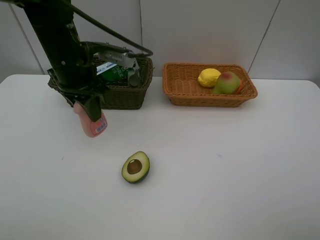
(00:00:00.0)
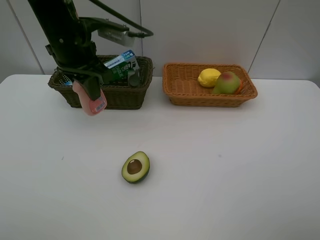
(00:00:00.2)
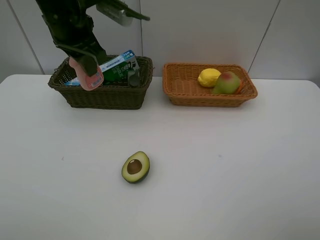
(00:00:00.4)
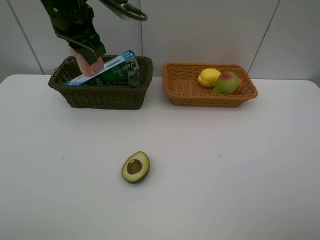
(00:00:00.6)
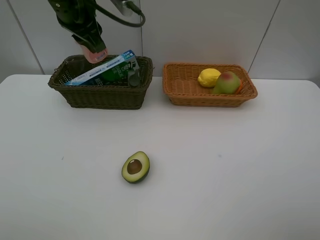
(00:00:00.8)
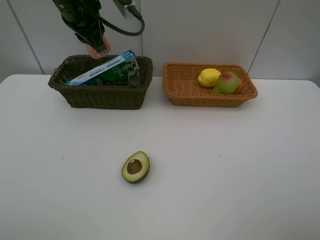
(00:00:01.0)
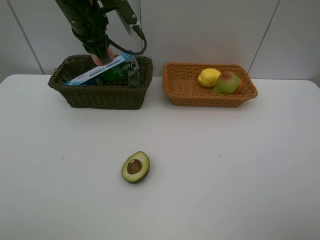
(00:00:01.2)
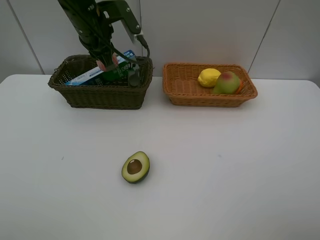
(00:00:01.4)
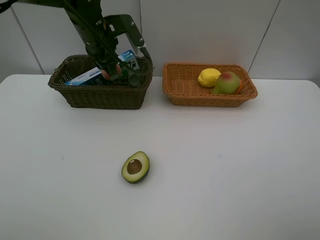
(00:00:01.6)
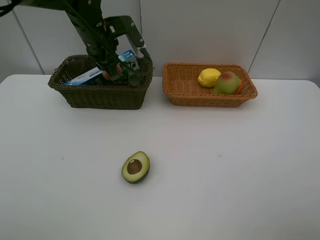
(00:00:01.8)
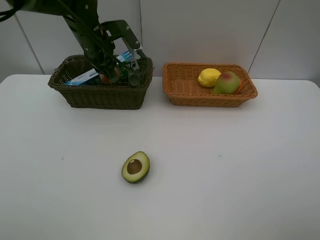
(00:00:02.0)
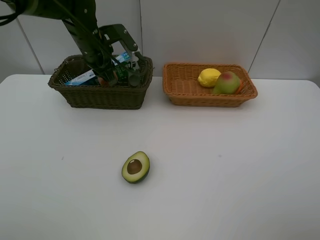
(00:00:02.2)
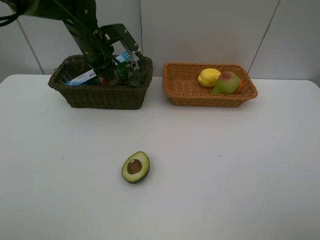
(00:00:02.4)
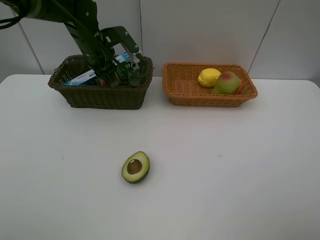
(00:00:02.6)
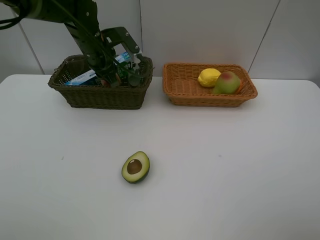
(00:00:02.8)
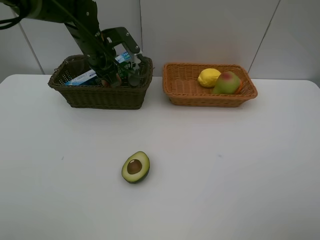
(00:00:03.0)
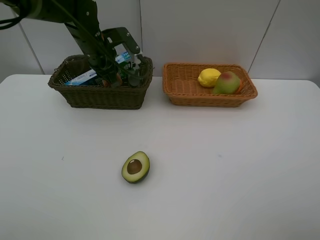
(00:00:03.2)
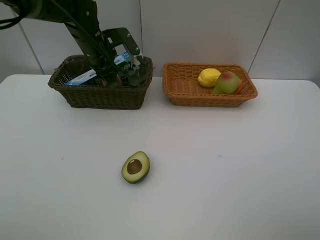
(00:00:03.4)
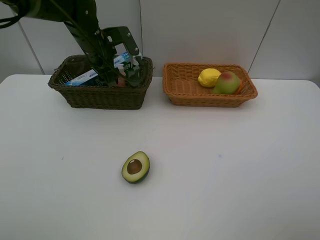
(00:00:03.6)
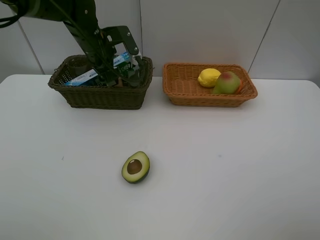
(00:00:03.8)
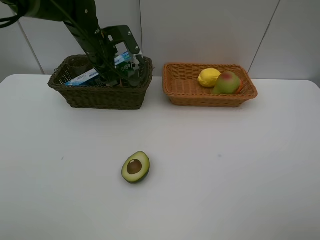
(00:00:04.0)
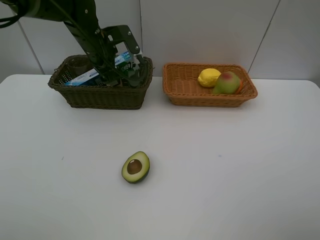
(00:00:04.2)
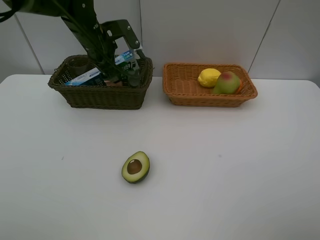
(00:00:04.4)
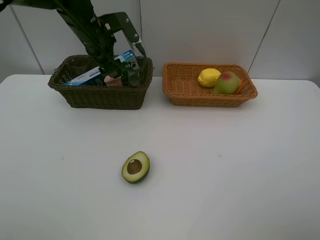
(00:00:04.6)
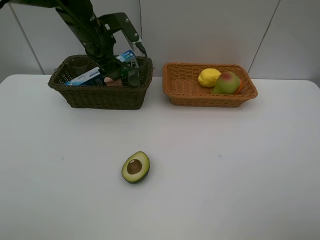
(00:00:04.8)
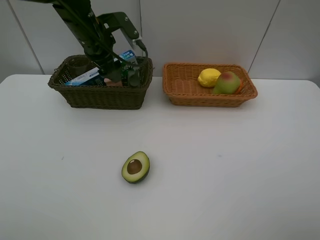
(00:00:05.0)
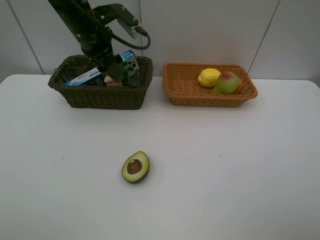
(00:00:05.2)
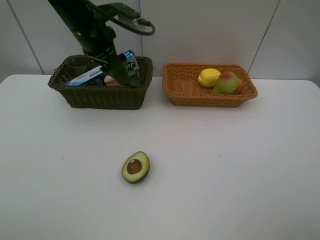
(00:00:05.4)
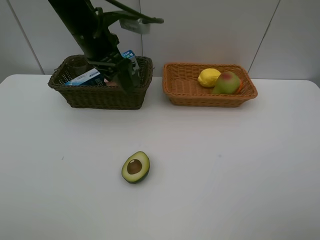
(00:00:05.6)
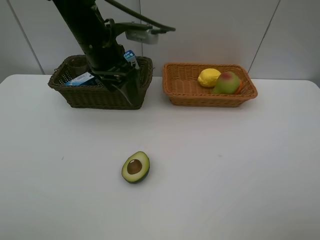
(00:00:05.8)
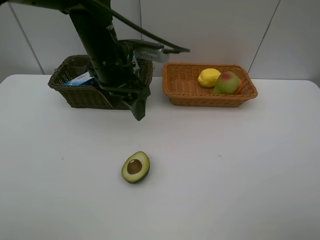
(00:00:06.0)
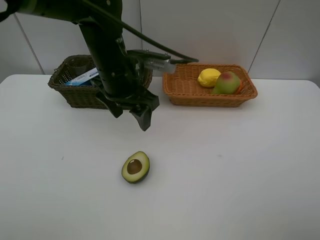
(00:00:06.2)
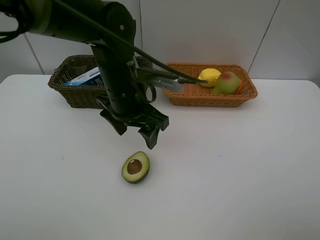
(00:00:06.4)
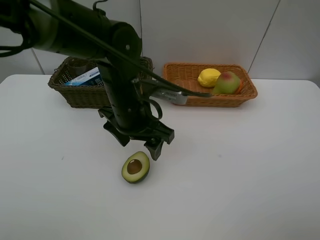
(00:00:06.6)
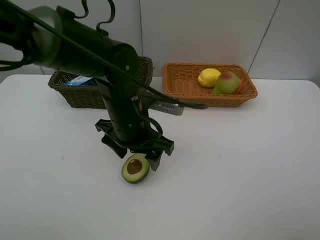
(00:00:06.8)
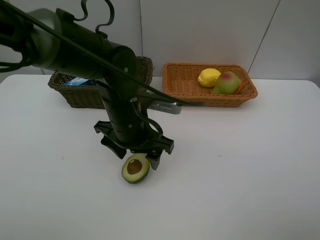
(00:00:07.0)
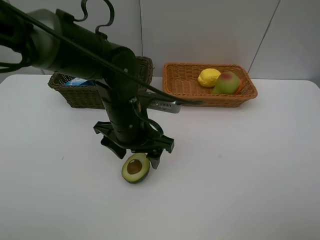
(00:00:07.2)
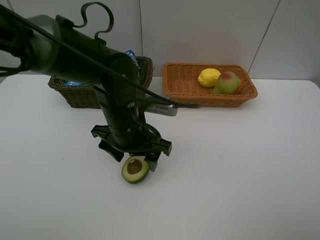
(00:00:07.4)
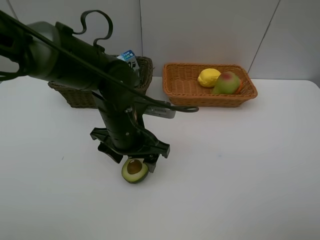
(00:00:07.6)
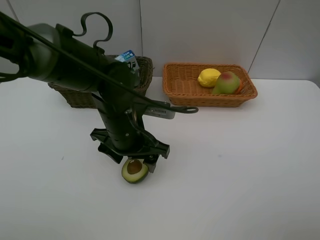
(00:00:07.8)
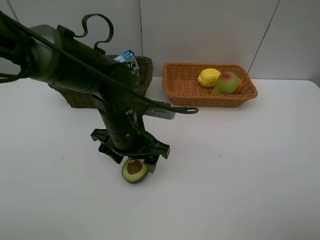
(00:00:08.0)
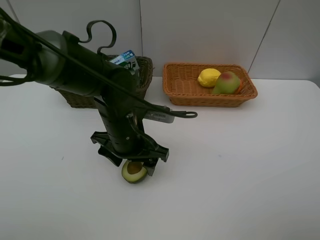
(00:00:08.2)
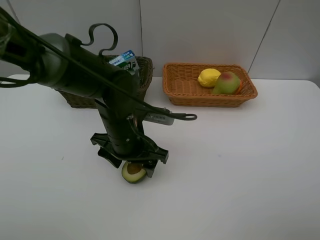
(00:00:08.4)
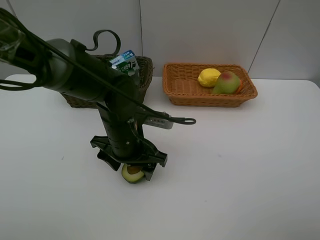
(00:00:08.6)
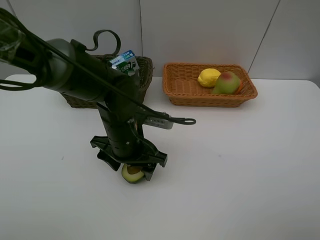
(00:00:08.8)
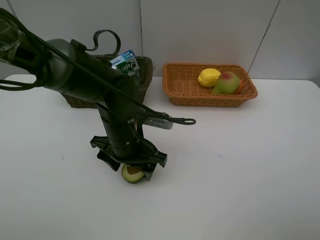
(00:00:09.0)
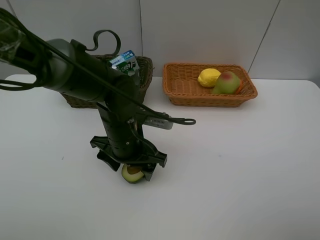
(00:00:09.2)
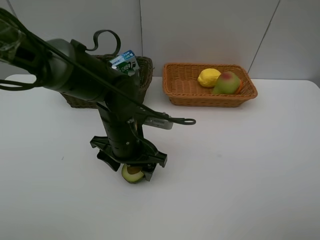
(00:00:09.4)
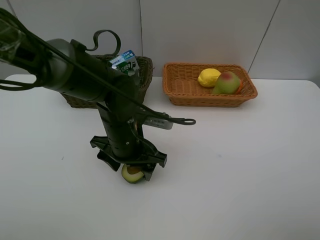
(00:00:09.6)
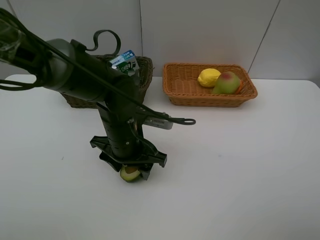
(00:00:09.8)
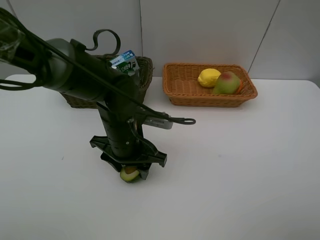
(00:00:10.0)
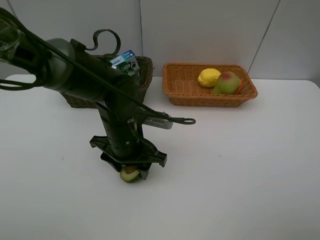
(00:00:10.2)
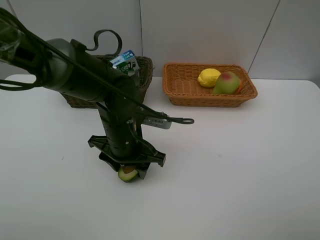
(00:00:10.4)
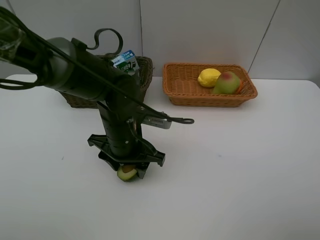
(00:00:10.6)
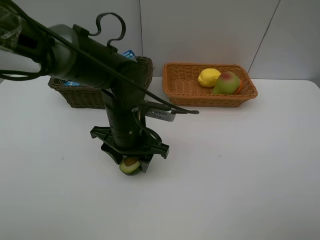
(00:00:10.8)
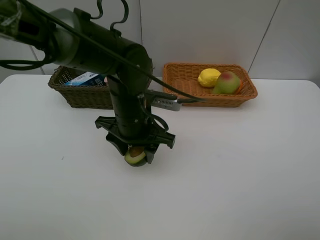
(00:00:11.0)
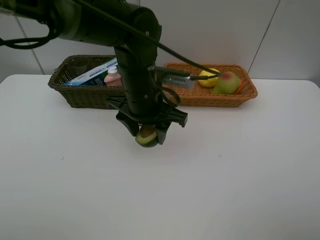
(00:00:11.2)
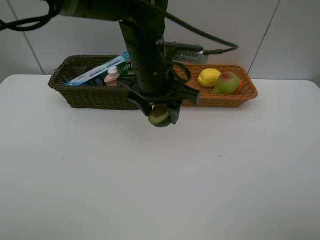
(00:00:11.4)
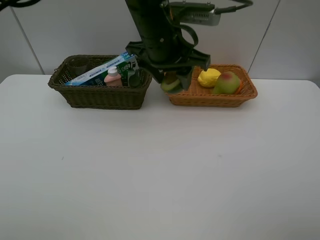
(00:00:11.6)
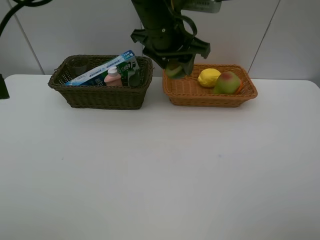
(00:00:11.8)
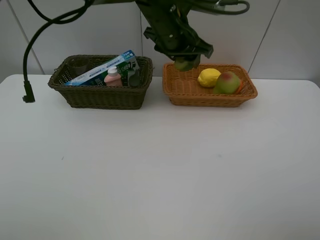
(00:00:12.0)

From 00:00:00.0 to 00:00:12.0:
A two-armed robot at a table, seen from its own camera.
Task of the whole recording: Place multiple objects separately in different baskets.
Step, from 00:00:00.0 to 00:00:04.8: Place the laundry detergent in the dark basket with left gripper.
Step, from 00:00:05.0 to 00:00:11.0: Pick up the avocado with left gripper.
From 00:00:00.0 to 00:00:01.6: The left gripper shifts some 10 cm forward.
From 00:00:01.6 to 00:00:03.0: The grippers move only a little.
From 00:00:03.0 to 00:00:04.4: The left gripper opens up.
From 00:00:04.4 to 00:00:06.0: The left gripper travels backward and to the right by approximately 10 cm.
From 00:00:06.0 to 00:00:07.6: The left gripper moves downward and backward, about 10 cm.
From 00:00:07.6 to 00:00:09.0: The grippers move only a little.
From 00:00:09.0 to 00:00:10.4: Both grippers stay put.
From 00:00:10.4 to 00:00:12.0: The left gripper is displaced forward, upward and to the right by about 20 cm.

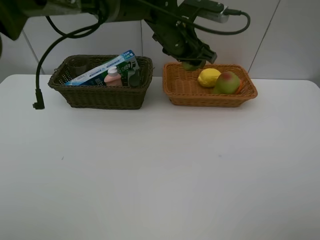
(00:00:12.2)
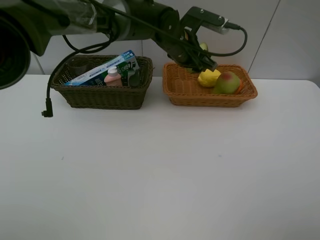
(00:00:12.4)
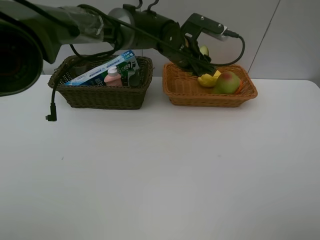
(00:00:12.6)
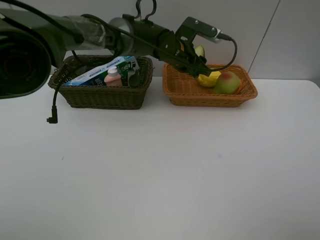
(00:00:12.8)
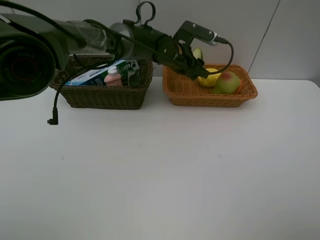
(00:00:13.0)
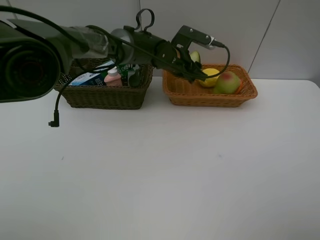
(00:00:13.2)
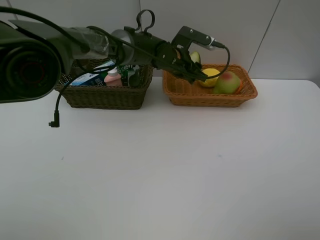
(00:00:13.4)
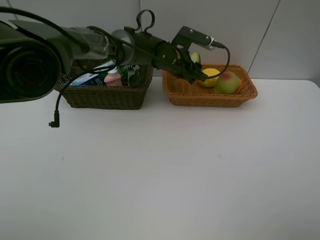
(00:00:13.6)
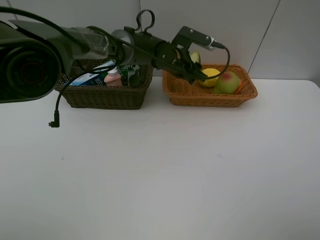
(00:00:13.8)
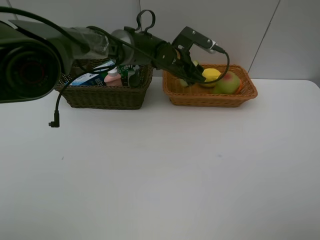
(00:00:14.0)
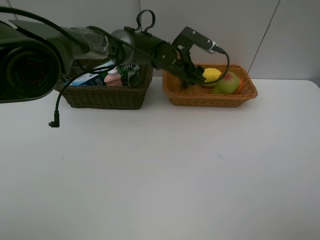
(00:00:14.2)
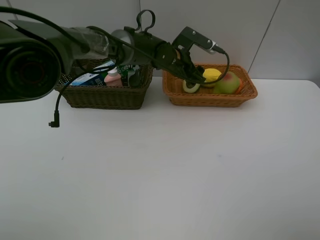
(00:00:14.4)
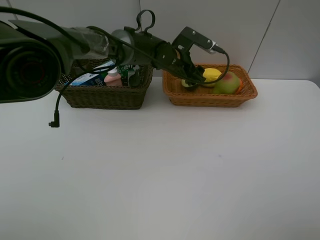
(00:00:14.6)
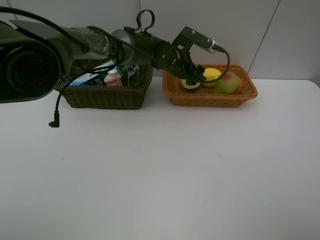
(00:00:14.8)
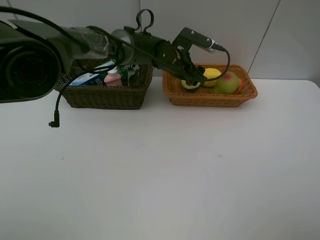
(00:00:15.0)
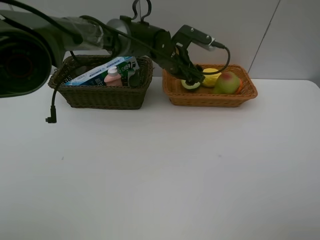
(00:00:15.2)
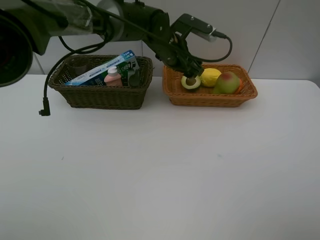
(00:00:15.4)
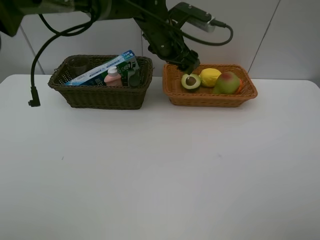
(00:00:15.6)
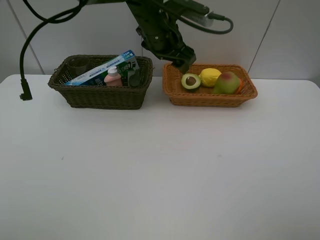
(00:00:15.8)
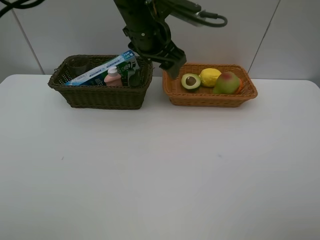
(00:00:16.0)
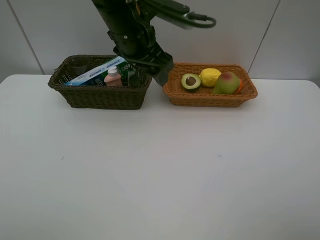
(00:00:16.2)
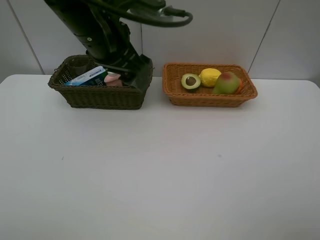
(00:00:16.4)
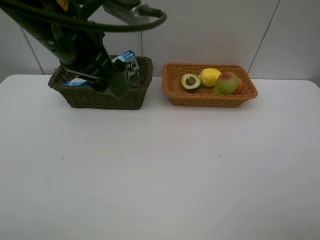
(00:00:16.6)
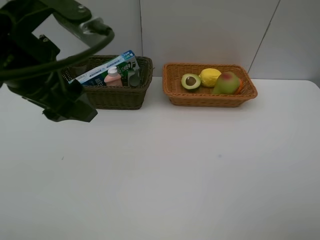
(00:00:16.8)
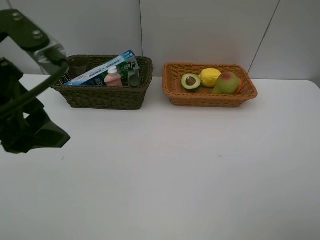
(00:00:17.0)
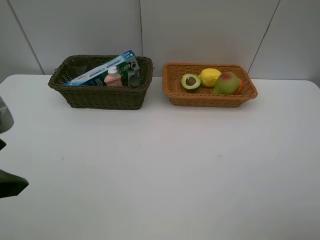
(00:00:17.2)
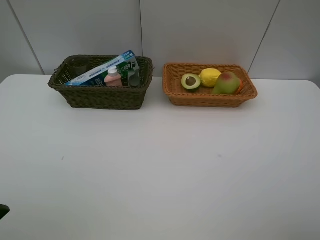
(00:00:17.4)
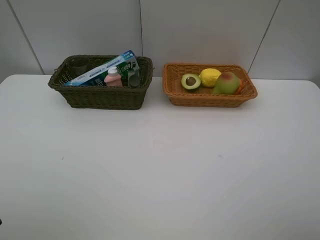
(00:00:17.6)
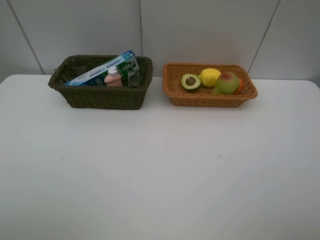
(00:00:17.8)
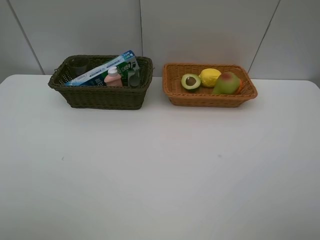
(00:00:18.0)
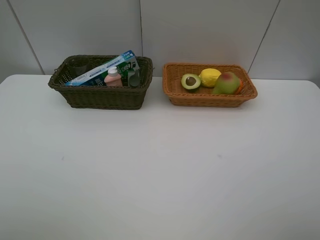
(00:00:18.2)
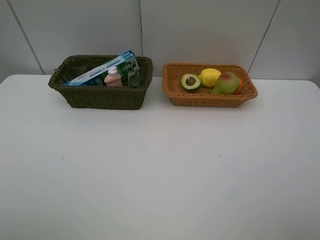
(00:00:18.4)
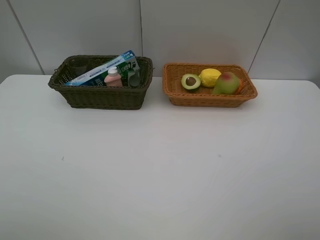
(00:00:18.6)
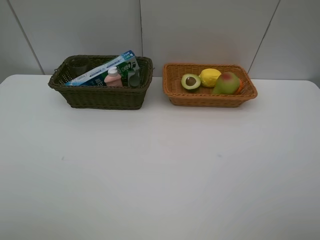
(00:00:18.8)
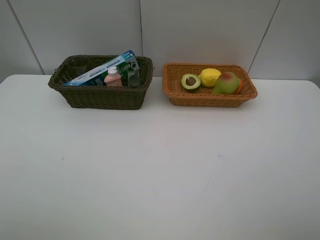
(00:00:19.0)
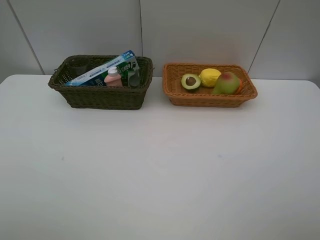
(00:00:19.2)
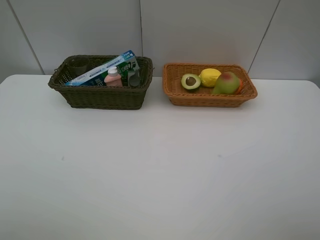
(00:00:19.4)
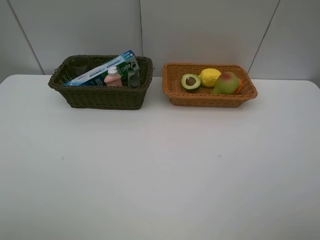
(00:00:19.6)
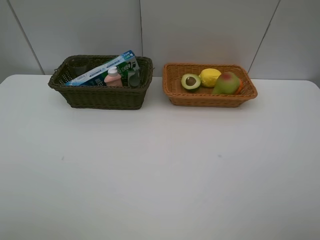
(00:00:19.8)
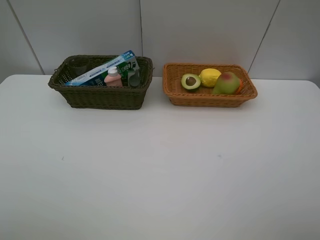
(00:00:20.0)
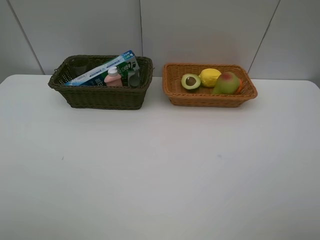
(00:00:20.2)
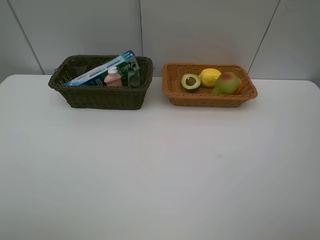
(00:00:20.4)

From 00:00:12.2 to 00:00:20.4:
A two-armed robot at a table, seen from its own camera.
Task of the whole recording: Place multiple objects separately in different baskets.
Step, from 00:00:12.2 to 00:00:15.4: Place the avocado in the light basket with left gripper.
From 00:00:12.2 to 00:00:13.8: The left gripper is displaced downward by about 10 cm.
From 00:00:13.8 to 00:00:15.4: The left gripper changes place by about 5 cm.
From 00:00:15.4 to 00:00:17.2: The left gripper is displaced backward and to the left by approximately 40 cm.
From 00:00:17.2 to 00:00:18.8: The left gripper heads backward and to the left, covering approximately 10 cm.
From 00:00:18.8 to 00:00:20.4: Neither gripper changes place.
